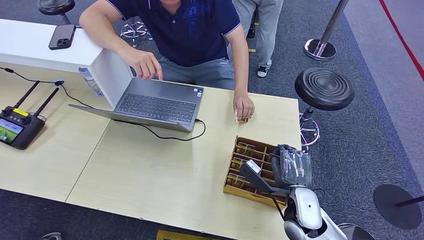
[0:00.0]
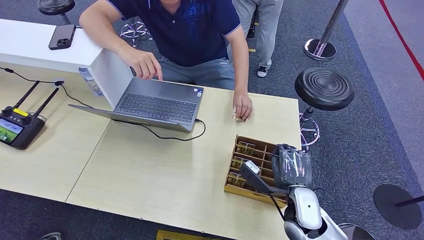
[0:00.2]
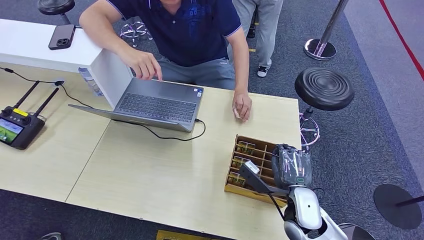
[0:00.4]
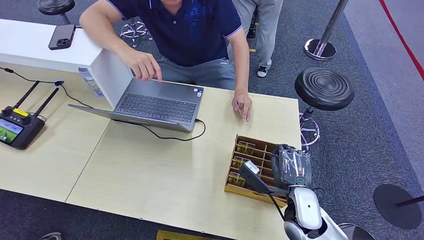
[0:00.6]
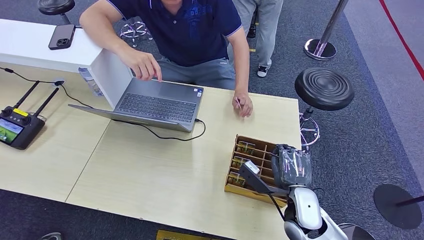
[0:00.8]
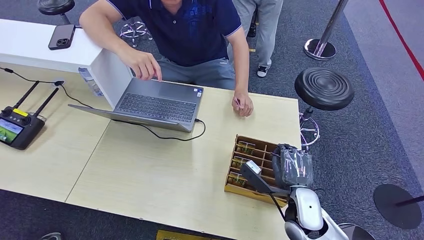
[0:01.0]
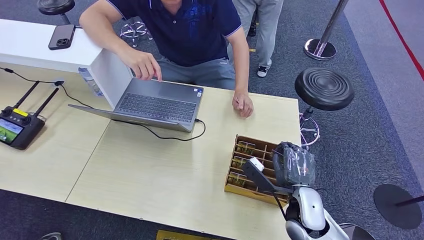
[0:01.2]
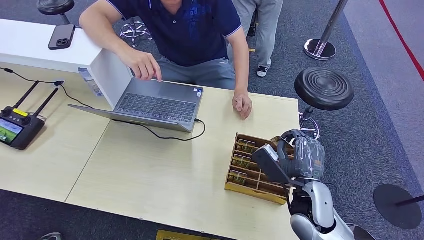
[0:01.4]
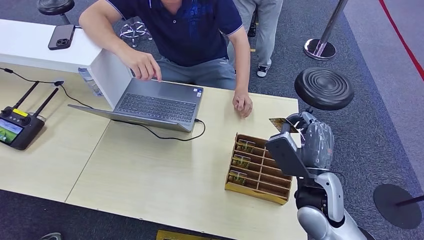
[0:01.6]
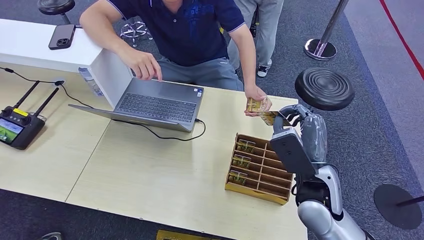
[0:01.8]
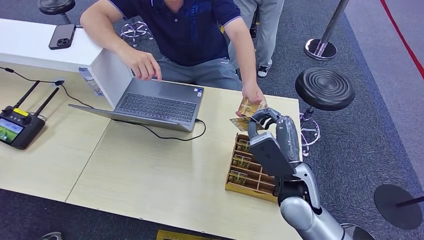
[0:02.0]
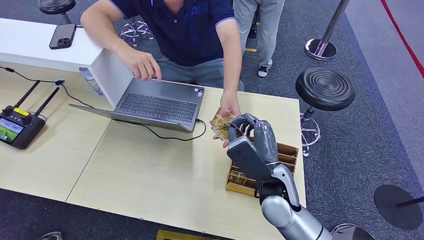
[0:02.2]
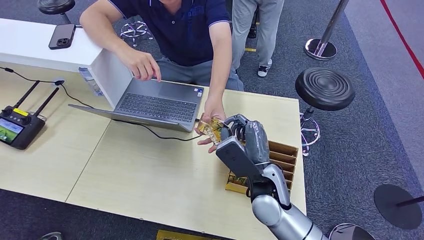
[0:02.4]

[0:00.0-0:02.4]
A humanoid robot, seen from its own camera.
Step, 0:01.8 to 0:02.4: Hand the room card to the target.
0:00.0 to 0:01.2: The hands move only a little.
0:01.2 to 0:02.4: The right hand goes approximately 10 cm to the left and upward.
